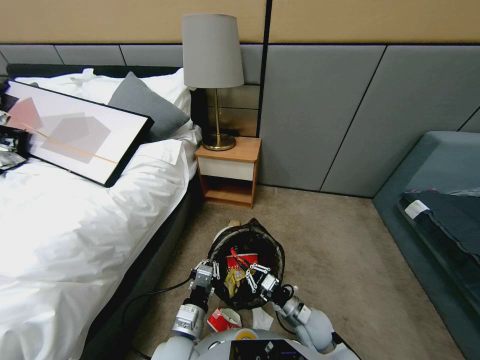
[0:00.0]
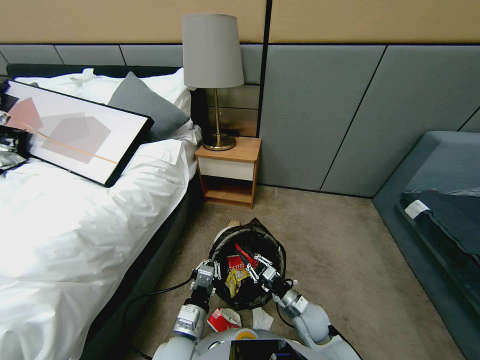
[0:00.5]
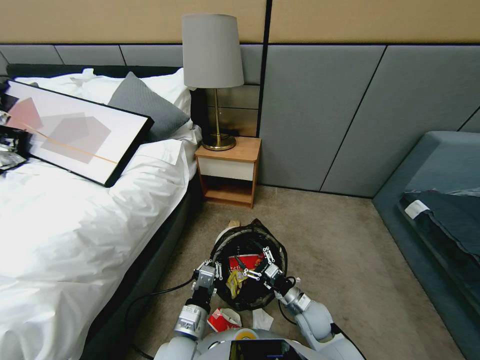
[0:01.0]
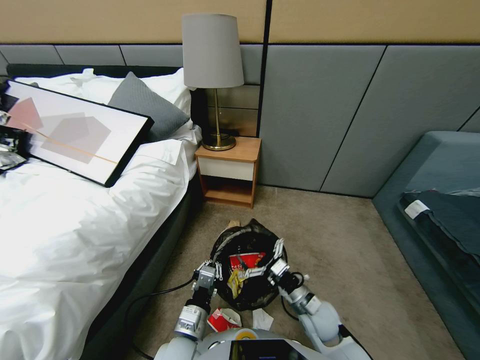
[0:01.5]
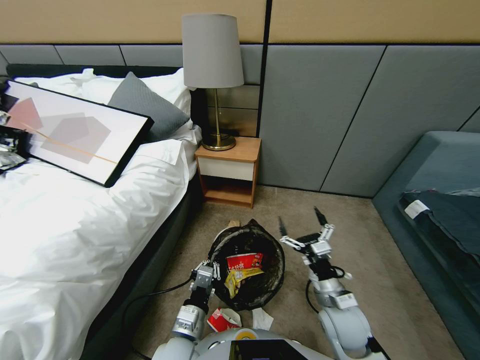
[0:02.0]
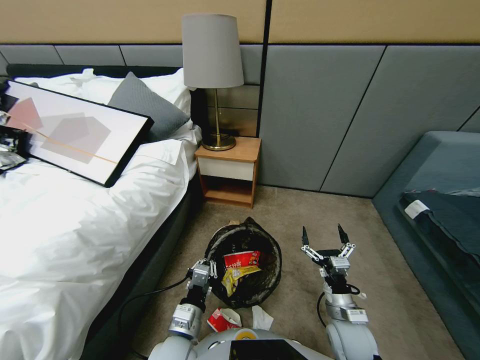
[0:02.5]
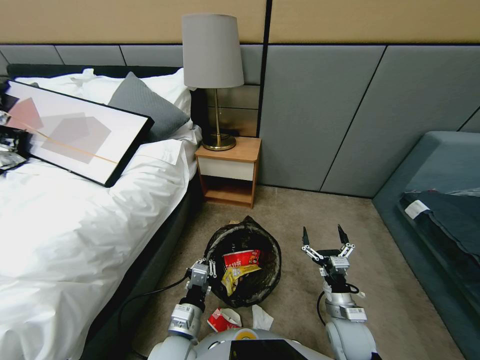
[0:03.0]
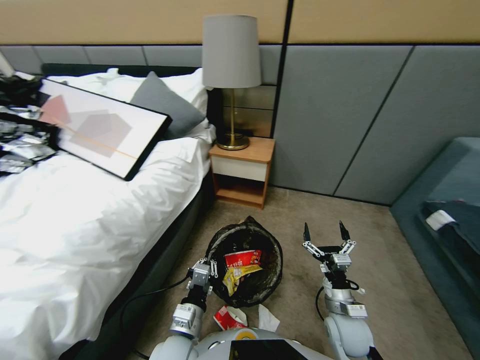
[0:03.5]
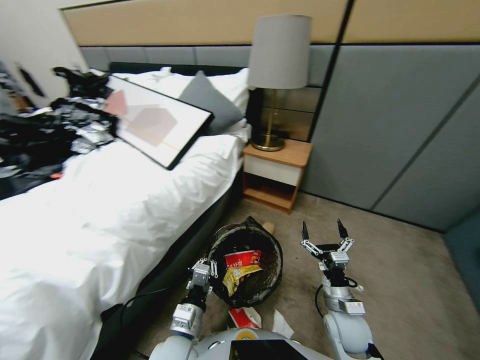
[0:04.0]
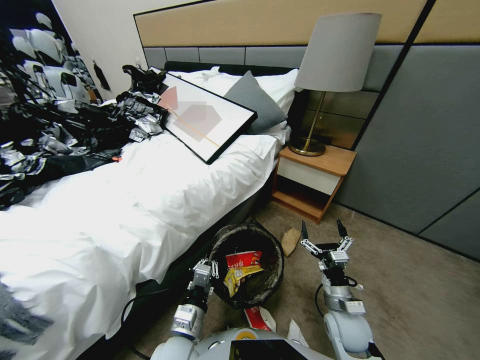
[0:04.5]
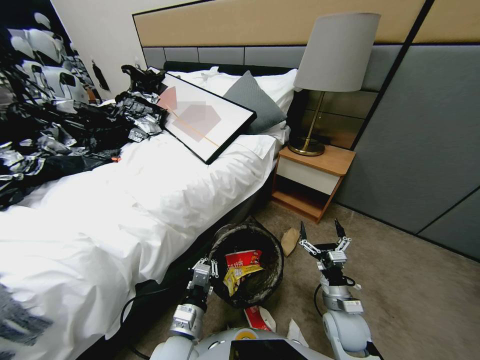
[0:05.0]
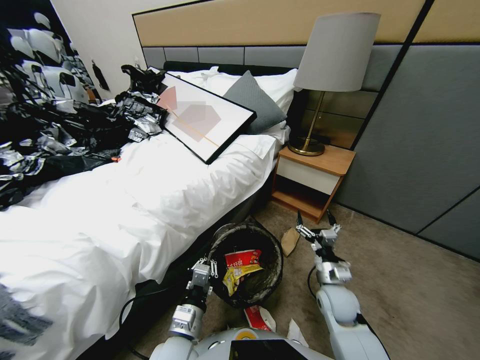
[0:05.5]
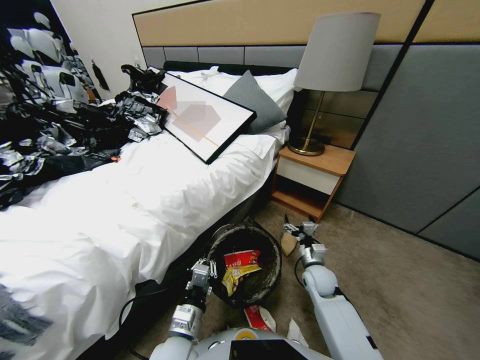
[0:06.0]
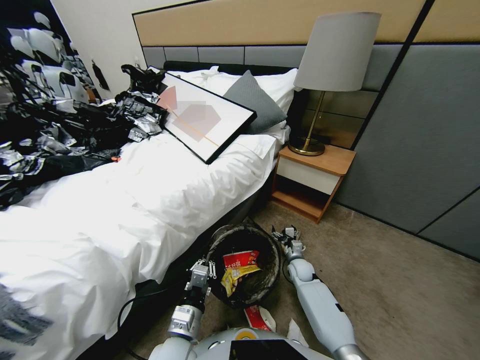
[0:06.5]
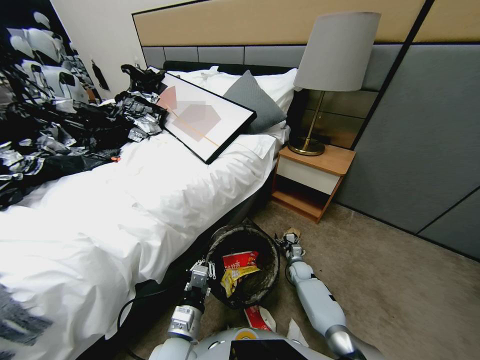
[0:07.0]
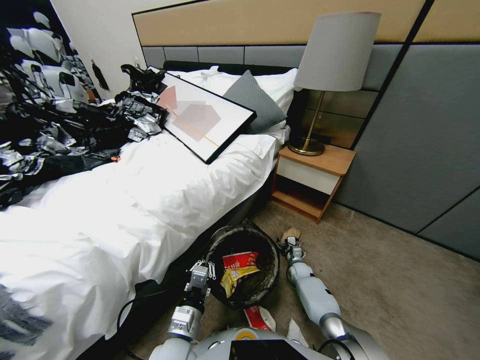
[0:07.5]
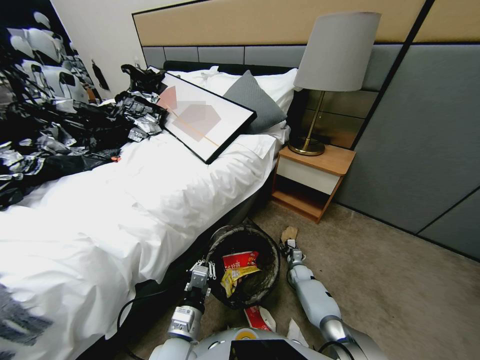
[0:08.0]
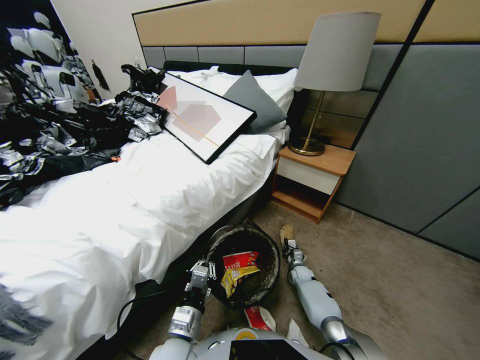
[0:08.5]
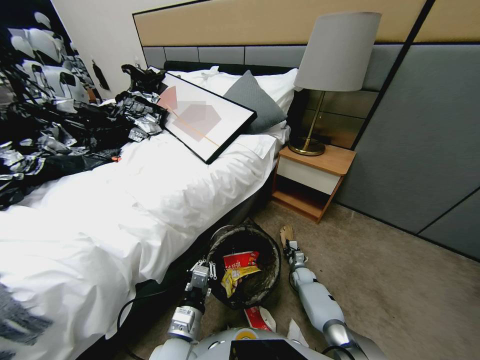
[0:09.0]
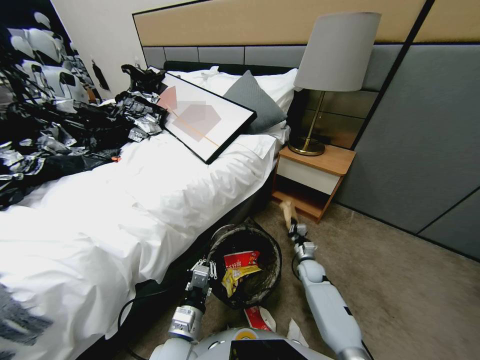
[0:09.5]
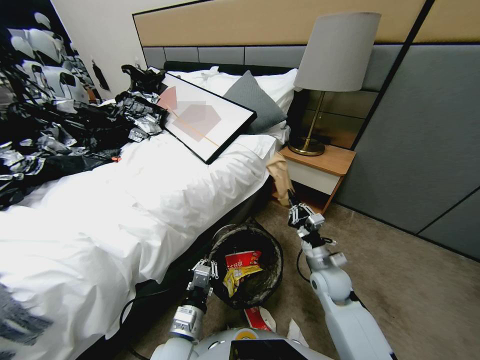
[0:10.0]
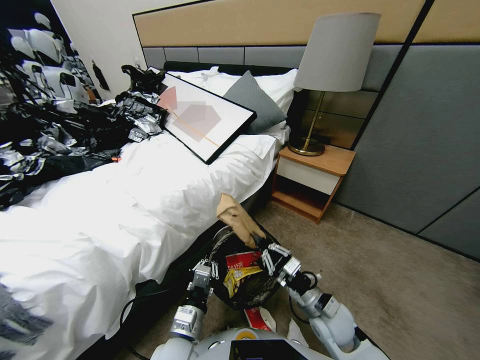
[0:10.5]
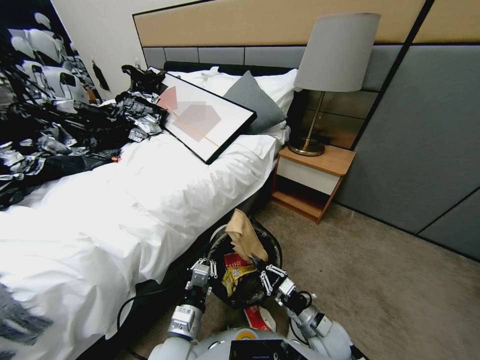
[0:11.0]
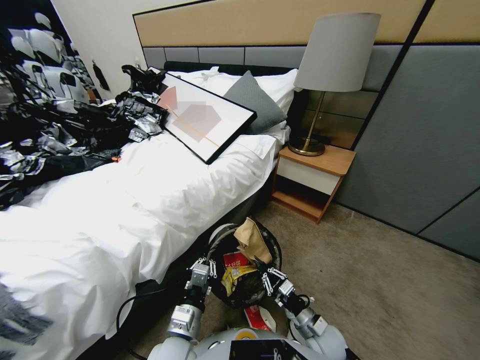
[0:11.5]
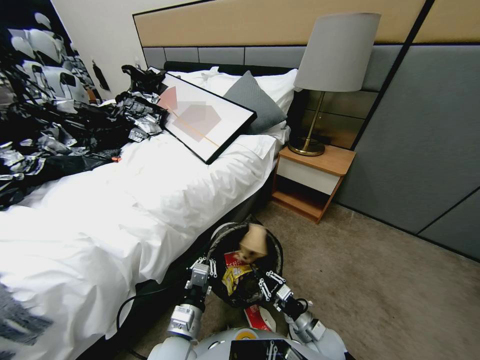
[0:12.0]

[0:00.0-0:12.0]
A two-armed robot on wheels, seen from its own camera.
Task of the whole recording: Pick up the trash bin, then pick up the garbage from the floor and place it into the trash bin.
0:00.0 to 0:02.0: The right gripper travels upward by approximately 10 cm, and opens its fingers.
0:04.0 to 0:06.0: The right gripper heads forward and downward, covering approximately 15 cm.
0:06.0 to 0:08.0: The right gripper is displaced downward by approximately 15 cm, and closes its fingers.
0:08.0 to 0:10.0: The right gripper goes some 30 cm upward and backward, and closes.
0:10.0 to 0:12.0: The right gripper travels downward and backward by about 20 cm.

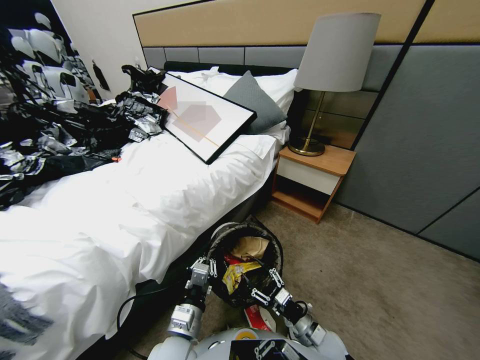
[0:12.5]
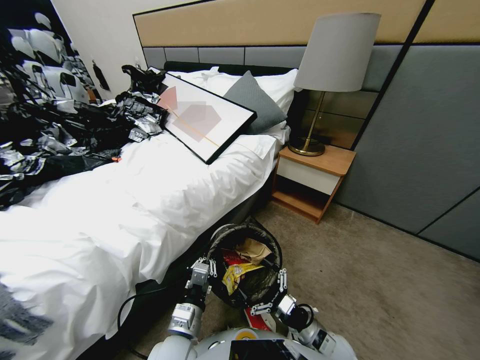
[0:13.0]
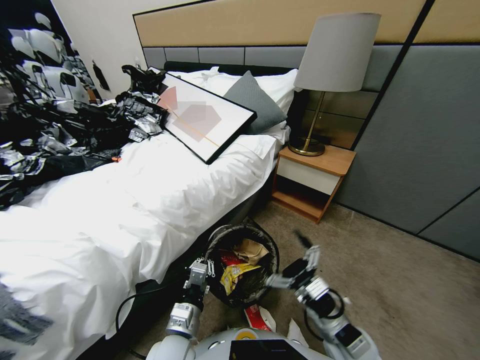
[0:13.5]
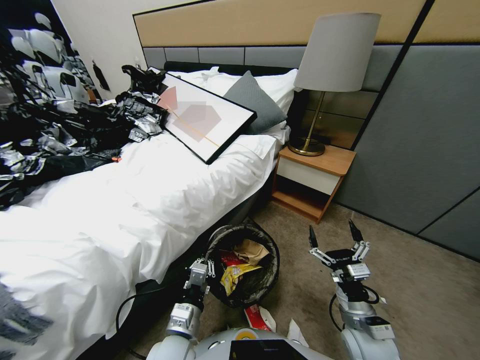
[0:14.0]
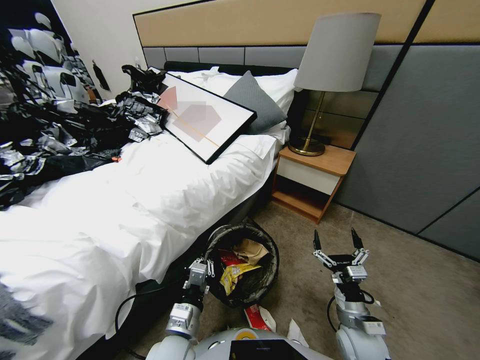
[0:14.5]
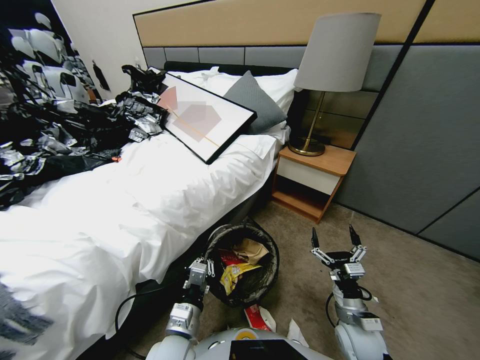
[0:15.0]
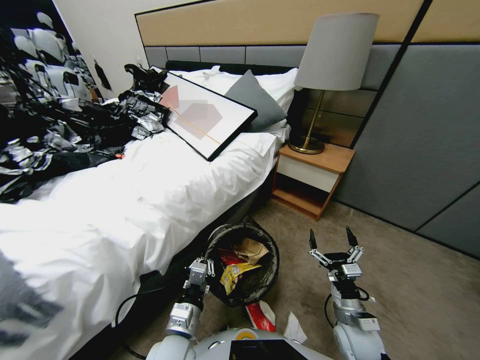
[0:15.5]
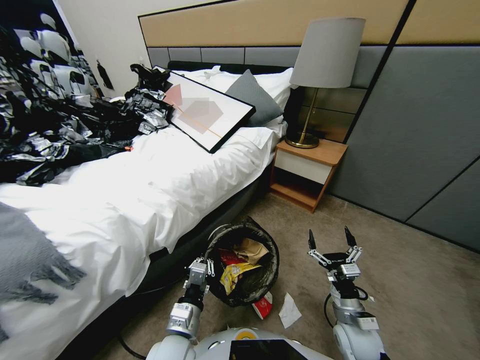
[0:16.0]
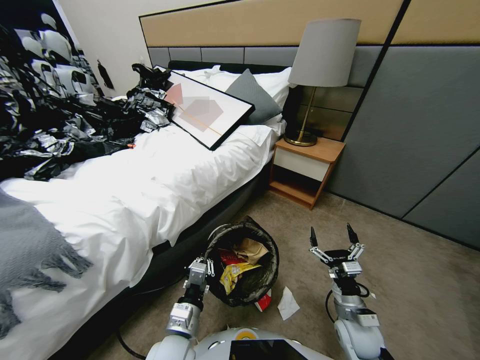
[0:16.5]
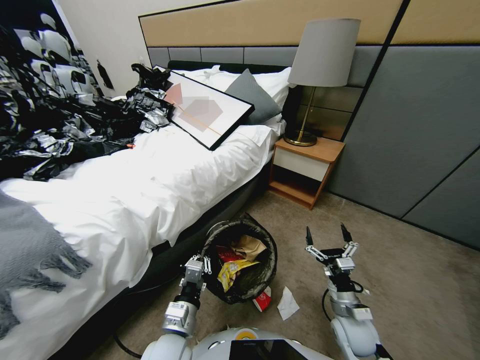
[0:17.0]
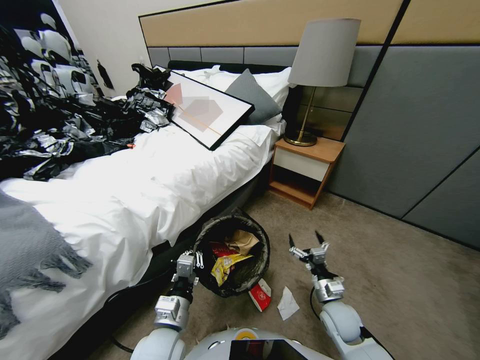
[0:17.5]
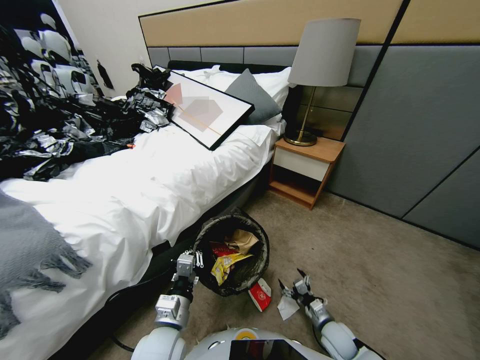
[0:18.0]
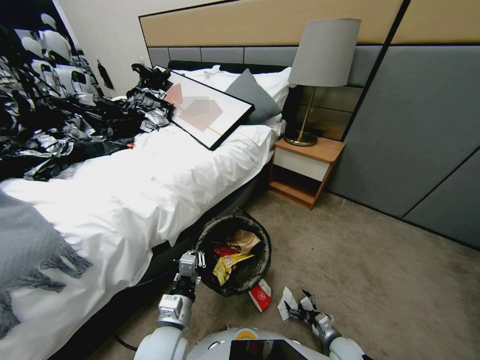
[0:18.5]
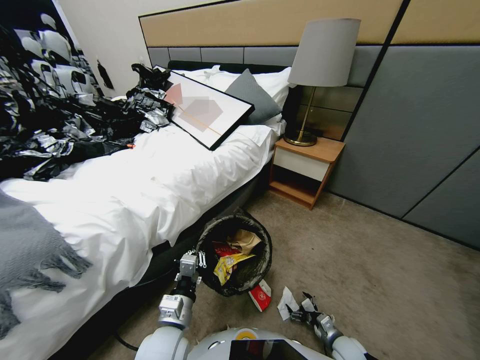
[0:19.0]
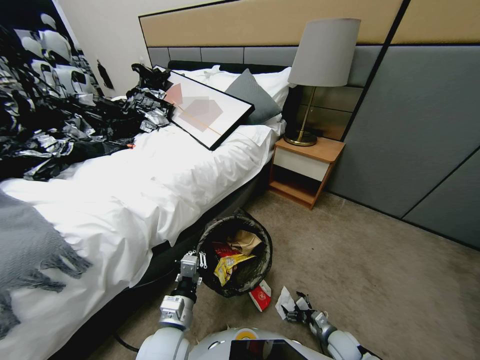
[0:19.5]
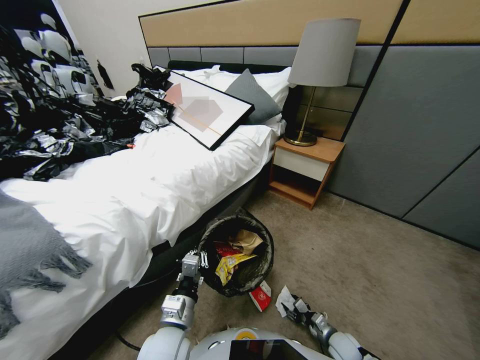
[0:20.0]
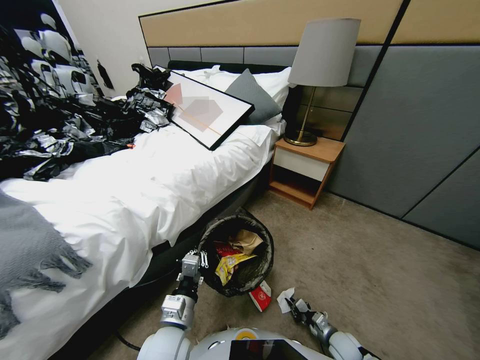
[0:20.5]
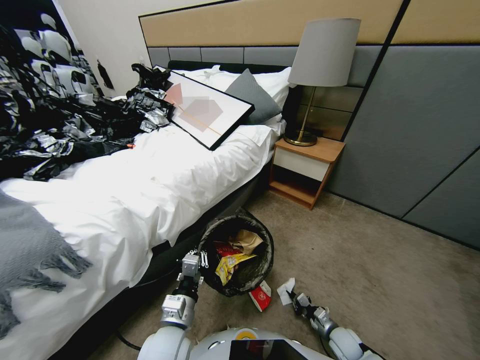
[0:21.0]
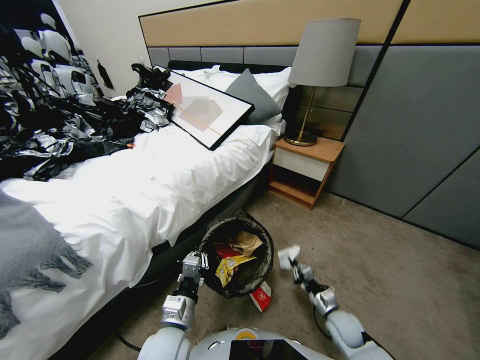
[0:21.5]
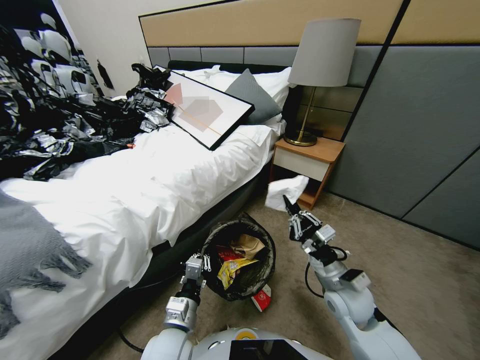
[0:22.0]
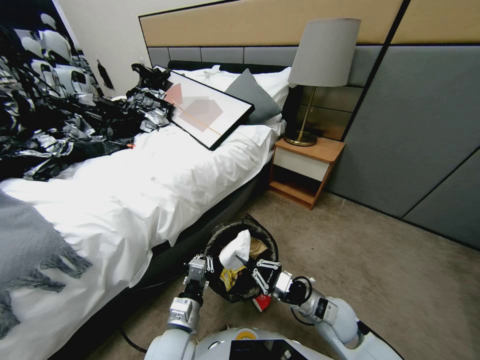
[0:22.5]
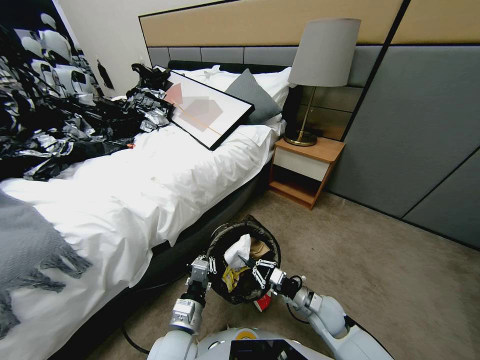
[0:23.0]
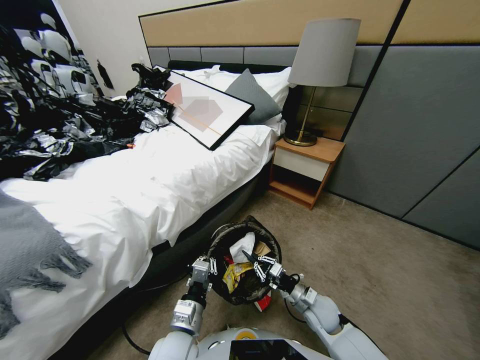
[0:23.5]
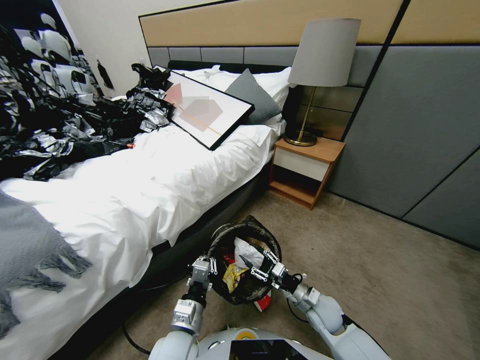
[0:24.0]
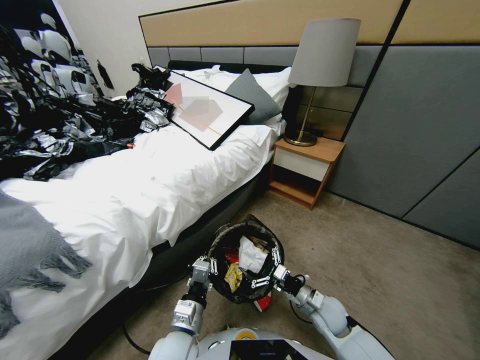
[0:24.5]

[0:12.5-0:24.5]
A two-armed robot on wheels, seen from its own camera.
Task of the whole recording: Pick up the trash bin, then pick up the garbage from the floor and place it into the trash bin.
0:12.5 to 0:14.5: The right gripper is displaced to the right and upward by roughly 10 cm.
0:16.5 to 0:18.5: The right gripper is displaced downward by approximately 15 cm.
0:18.5 to 0:20.5: The right gripper closes up.
0:20.5 to 0:22.5: The right gripper moves upward and to the left, about 25 cm.
0:22.5 to 0:24.5: The right gripper opens up.

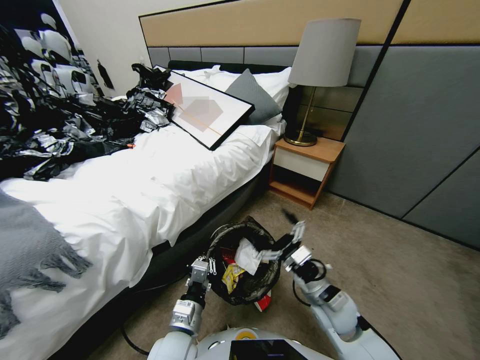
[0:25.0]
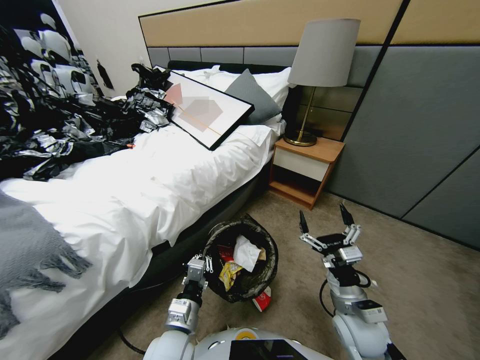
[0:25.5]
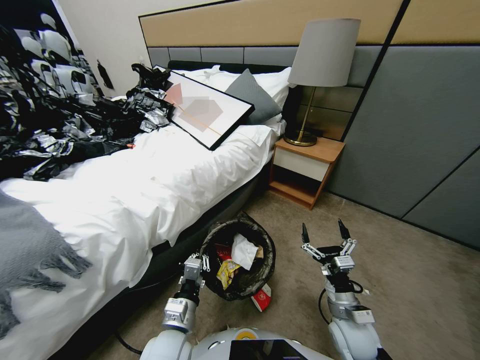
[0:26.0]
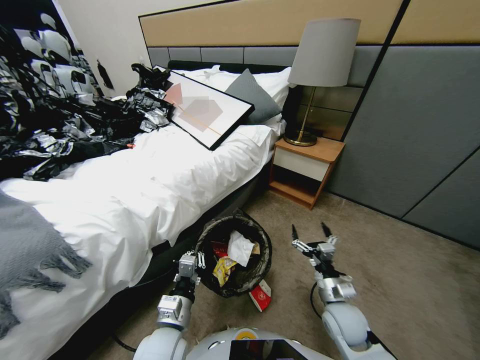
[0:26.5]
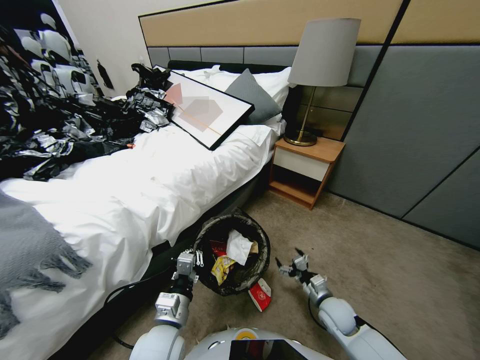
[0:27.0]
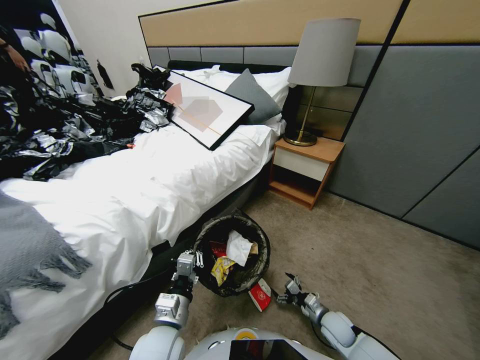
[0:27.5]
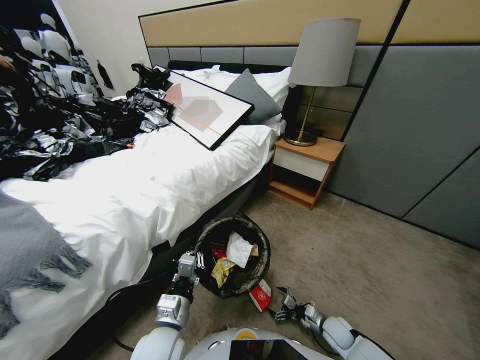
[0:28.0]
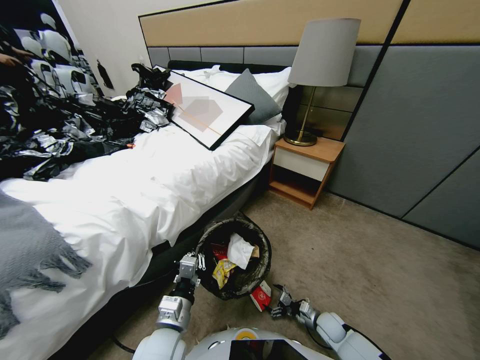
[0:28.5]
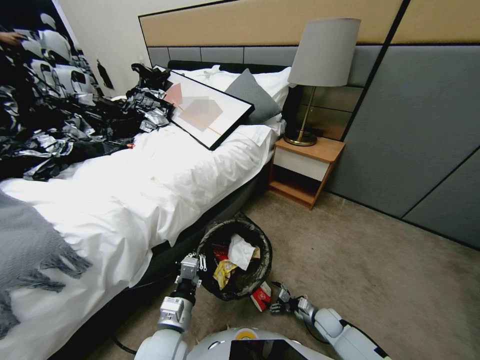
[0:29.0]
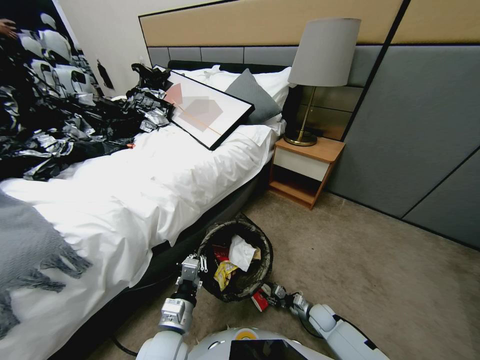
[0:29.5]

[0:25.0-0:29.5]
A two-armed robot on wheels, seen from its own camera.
Task of the whole recording: Pick up the trash bin, then pick up the garbage from the floor and place it into the trash bin.
0:25.0 to 0:27.0: The right gripper shifts approximately 15 cm downward.
0:27.0 to 0:29.5: The right gripper travels downward by some 15 cm, and closes.